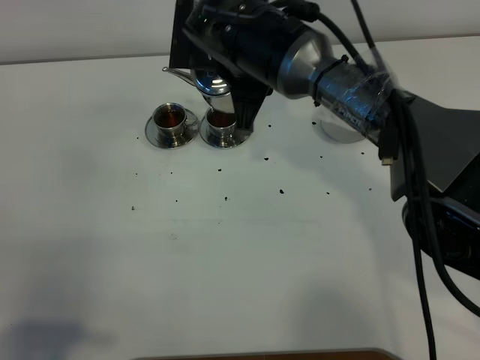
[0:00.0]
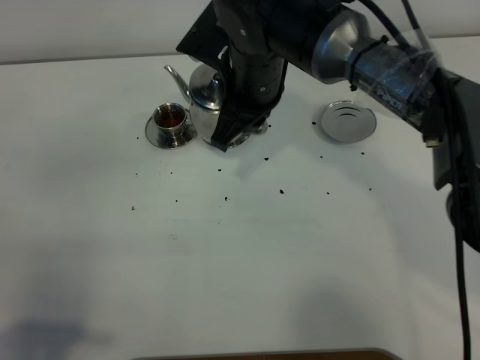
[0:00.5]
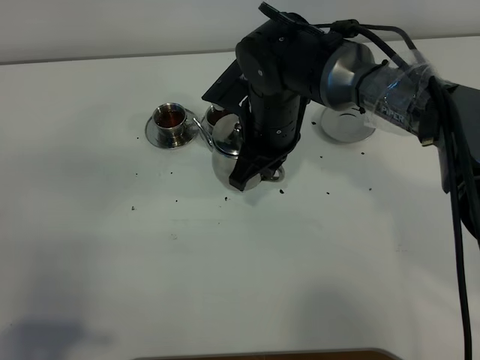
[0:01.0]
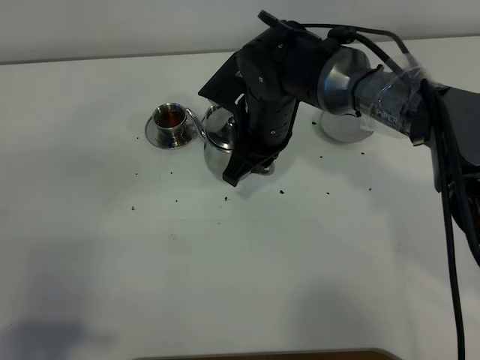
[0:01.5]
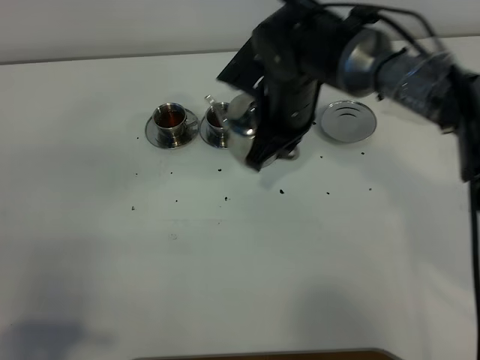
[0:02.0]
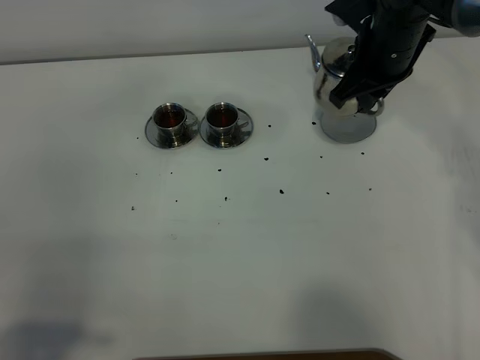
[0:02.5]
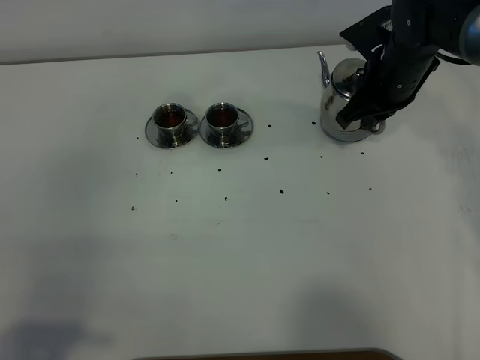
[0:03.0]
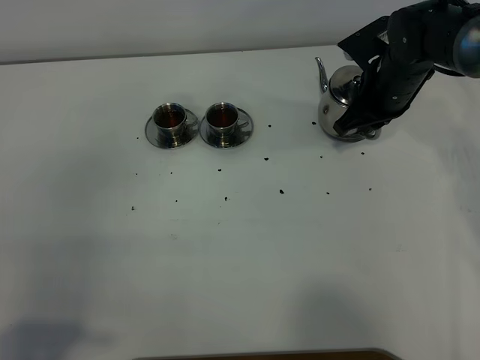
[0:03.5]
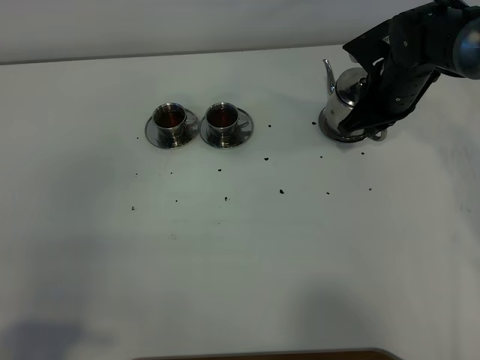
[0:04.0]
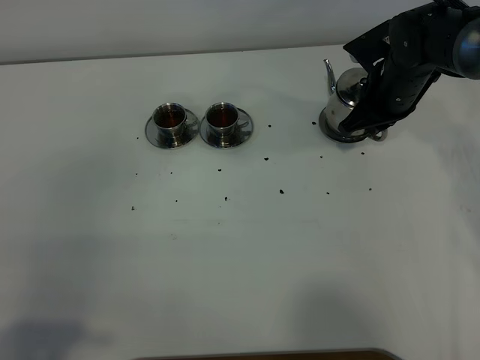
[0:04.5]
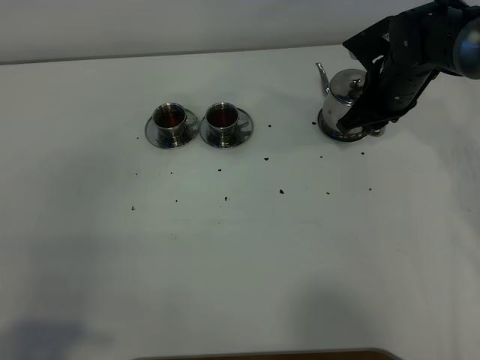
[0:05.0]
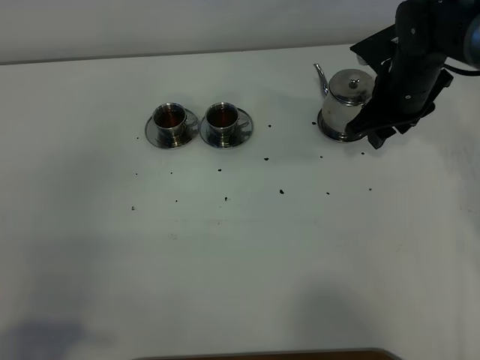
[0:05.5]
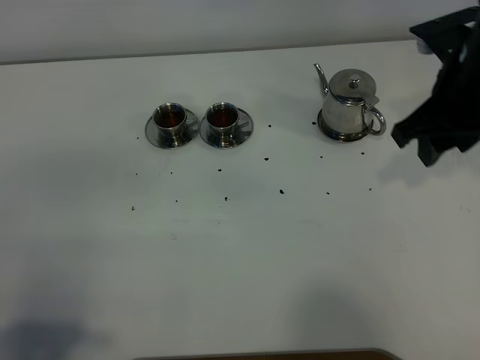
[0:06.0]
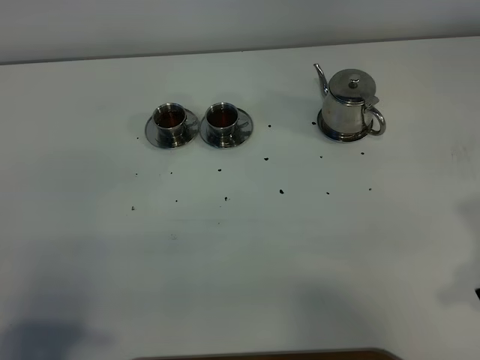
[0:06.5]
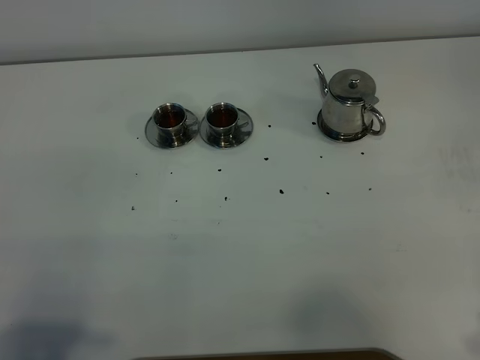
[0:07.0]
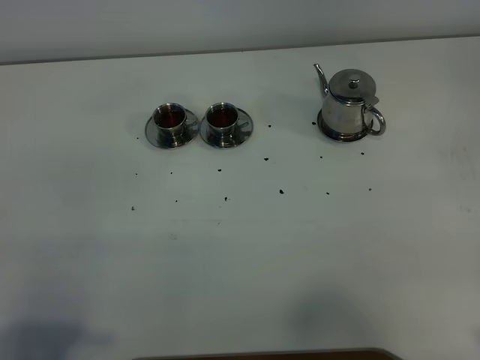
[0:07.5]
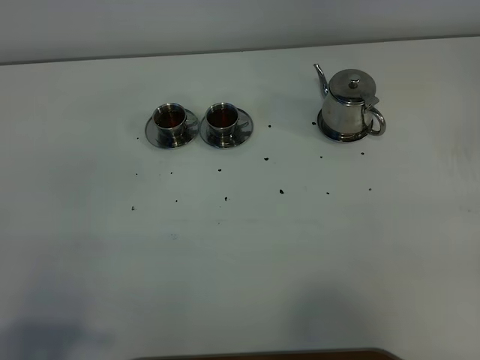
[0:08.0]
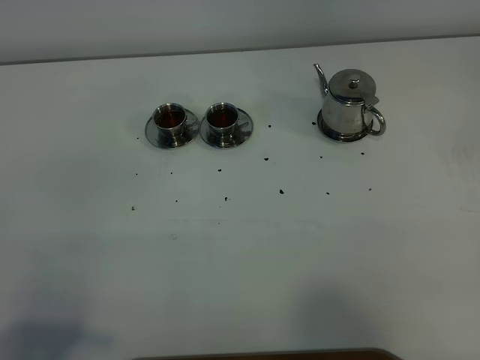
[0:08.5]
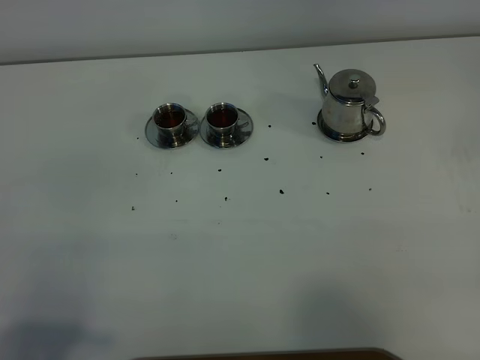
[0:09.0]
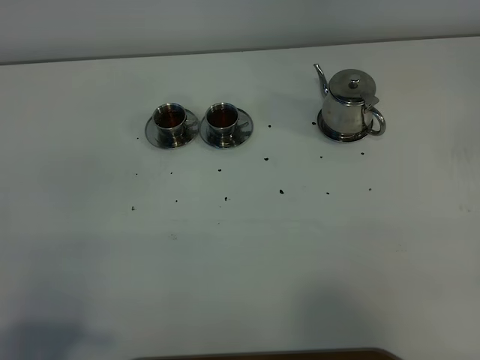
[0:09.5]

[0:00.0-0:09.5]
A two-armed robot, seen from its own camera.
Task of the whole recording: grasp the stainless steel teapot and pour the tea into the two stainless steel teacups one by one, put the stainless steel teapot back in its original place.
0:00.0 to 0:02.0: The right gripper moves to the right, some 5 cm.
0:02.0 to 0:04.0: The right gripper moves to the right, forward and downward, roughly 15 cm.
0:04.0 to 0:05.5: The right gripper opens its fingers.
0:05.5 to 0:07.5: The right gripper travels backward and to the right by approximately 35 cm.
